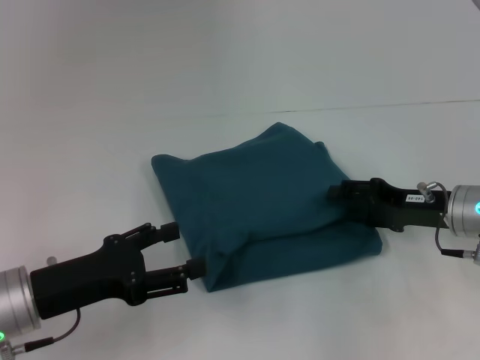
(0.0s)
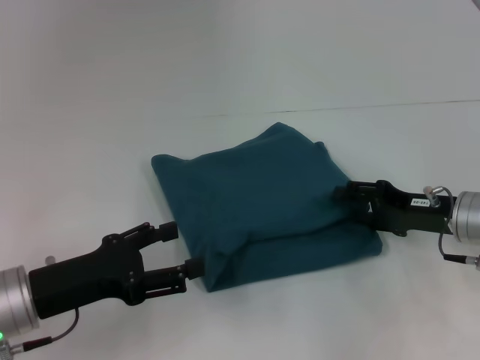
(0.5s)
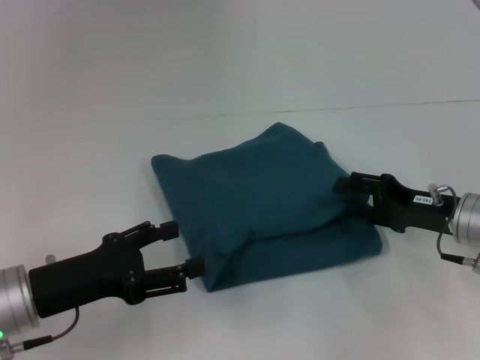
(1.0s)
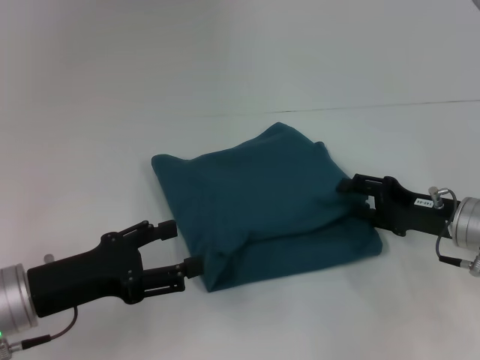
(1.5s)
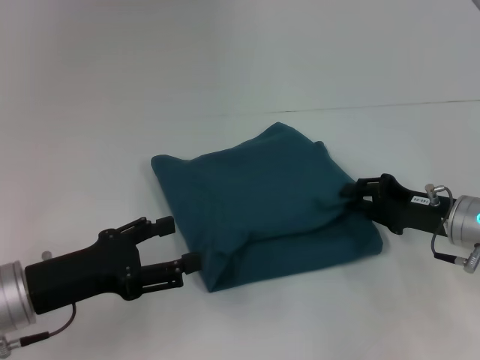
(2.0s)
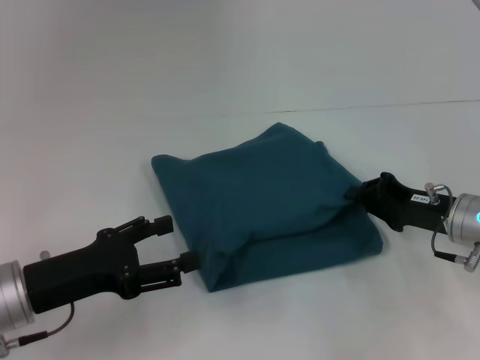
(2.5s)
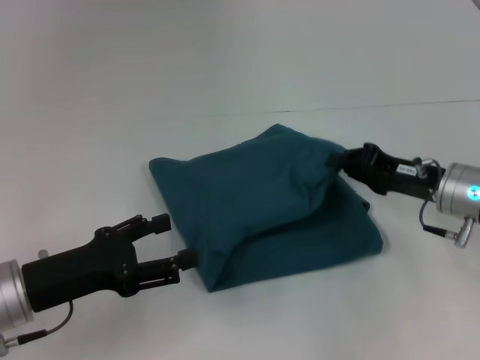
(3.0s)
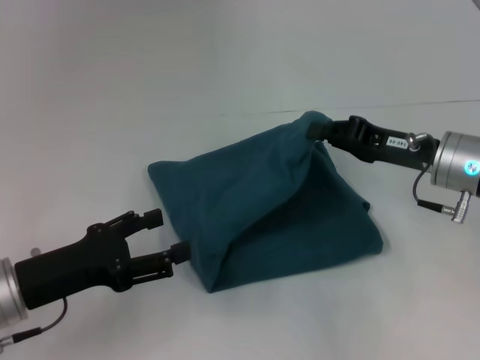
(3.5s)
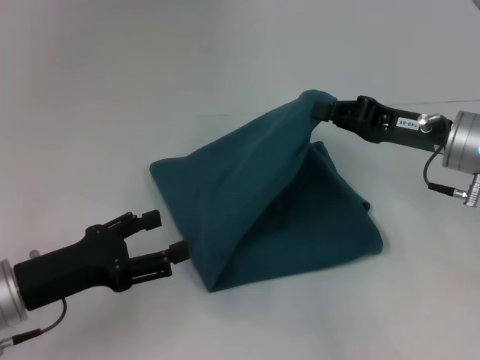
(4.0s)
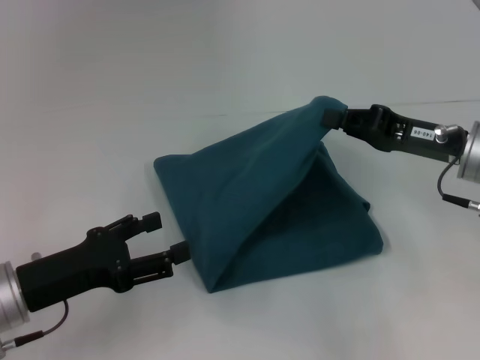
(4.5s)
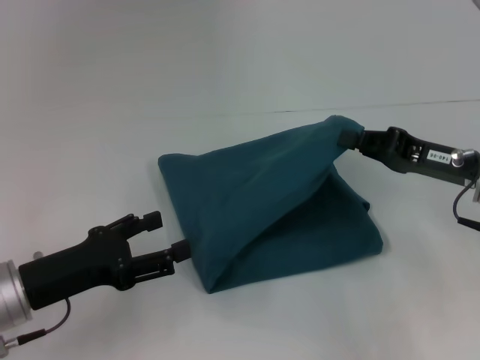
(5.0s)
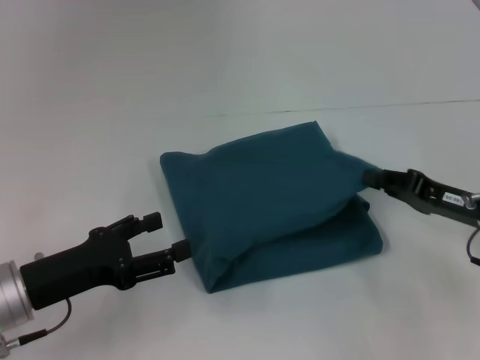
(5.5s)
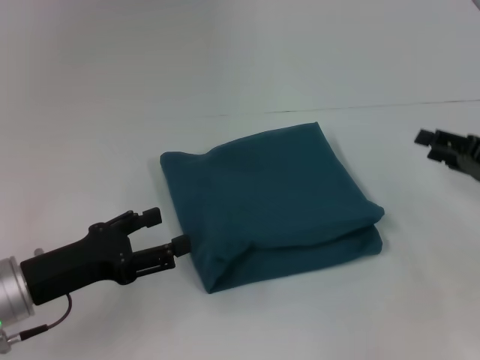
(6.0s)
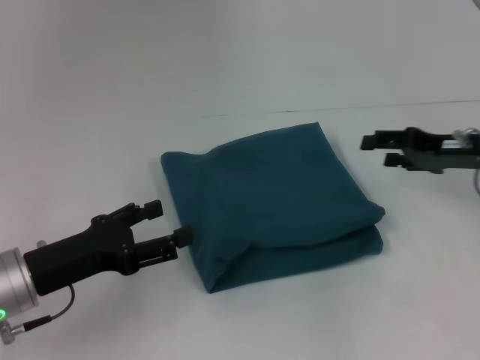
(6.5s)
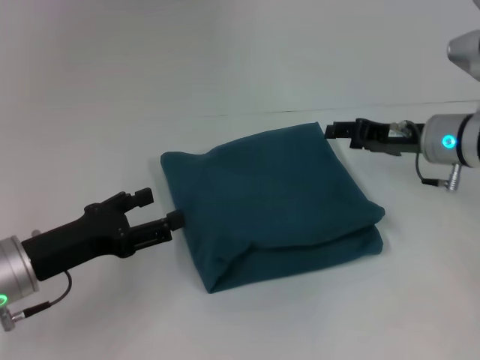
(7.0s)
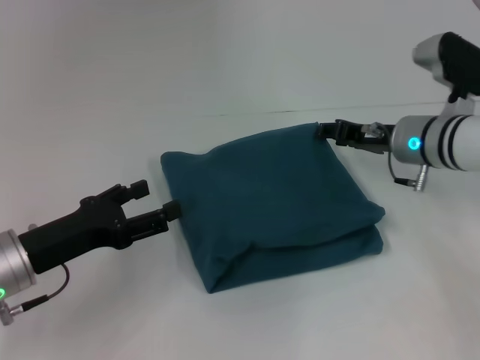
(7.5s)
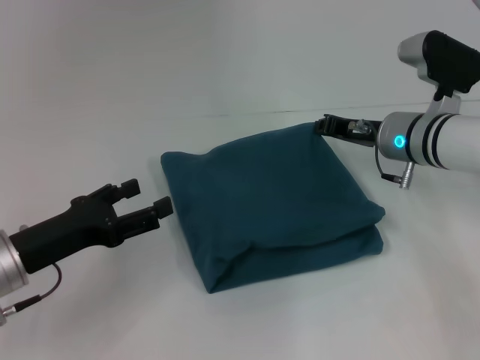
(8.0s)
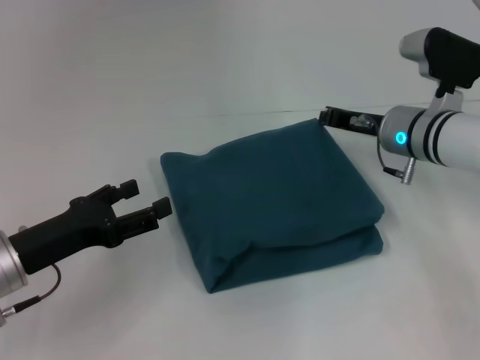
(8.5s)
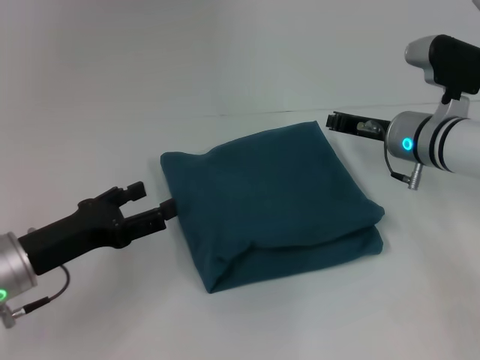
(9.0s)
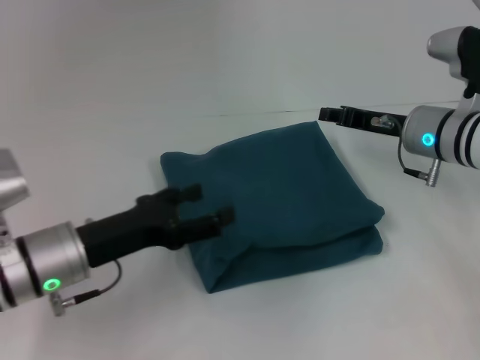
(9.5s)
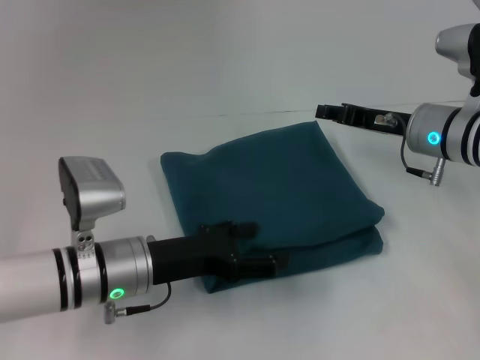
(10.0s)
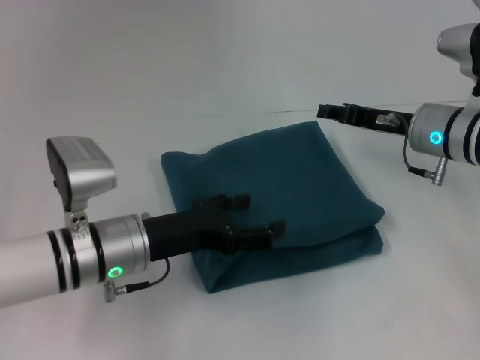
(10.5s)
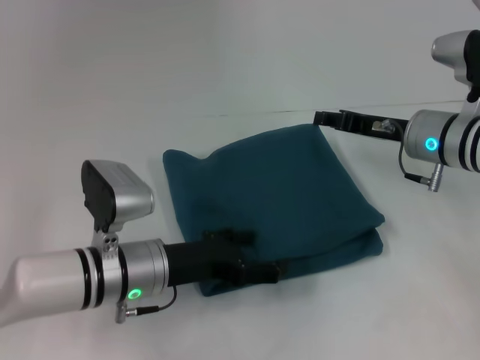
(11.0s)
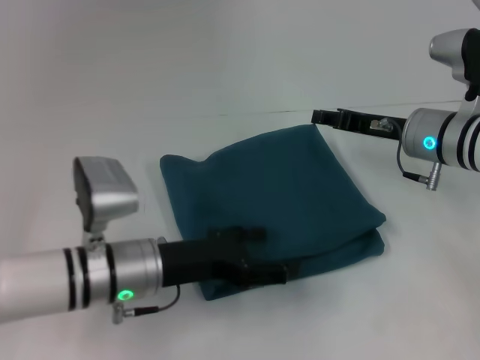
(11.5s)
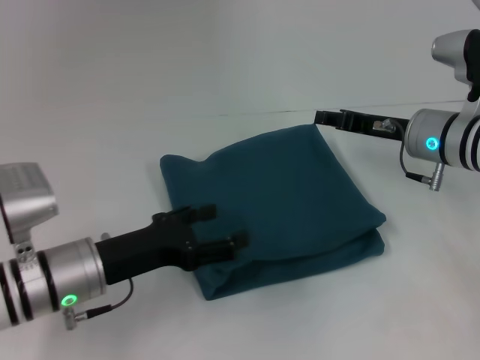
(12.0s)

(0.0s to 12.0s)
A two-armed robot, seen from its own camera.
0.0s - 2.0s: There are only small adjustments of the grippers.
2.0s - 4.0s: The right gripper travels upward by roughly 10 cm, and closes up.
4.0s - 6.0s: The right gripper moves to the right, approximately 10 cm, and opens its fingers.
6.0s - 8.0s: The right gripper shifts approximately 20 cm to the left and forward.
8.0s - 10.0s: The right gripper closes and opens again. Meanwhile the left gripper heads to the right, covering approximately 10 cm.
10.0s - 12.0s: The grippers move only a little.

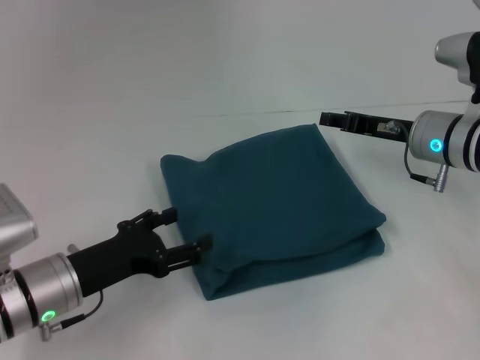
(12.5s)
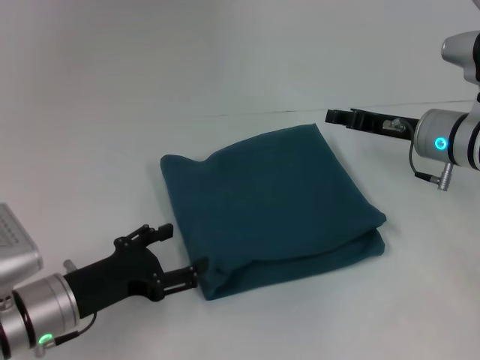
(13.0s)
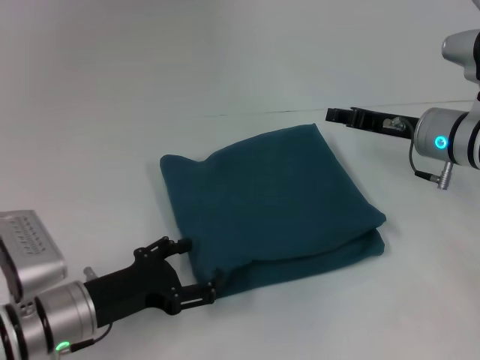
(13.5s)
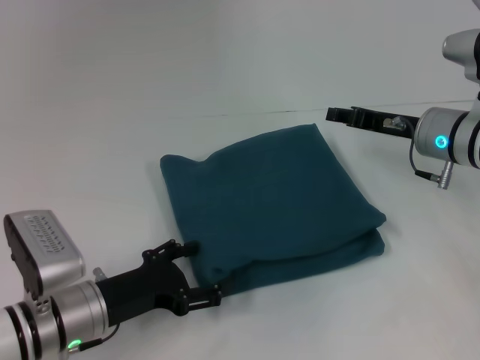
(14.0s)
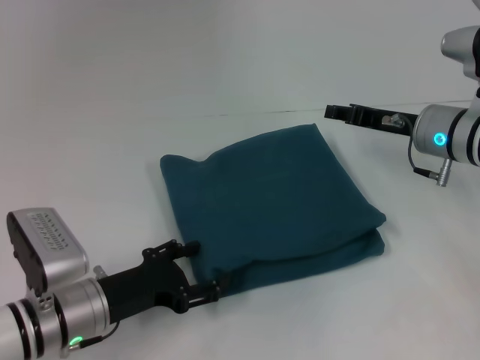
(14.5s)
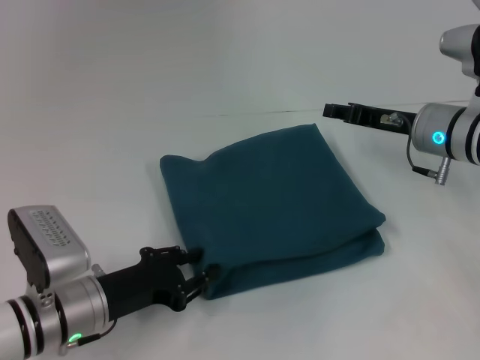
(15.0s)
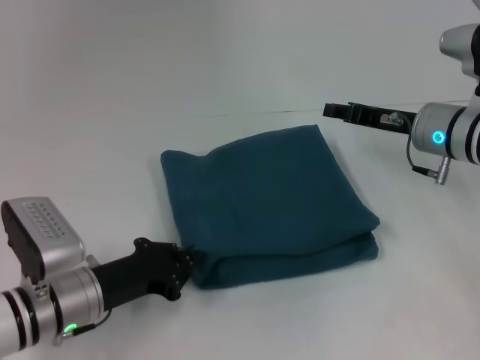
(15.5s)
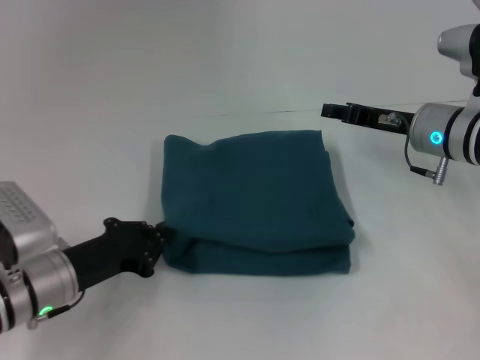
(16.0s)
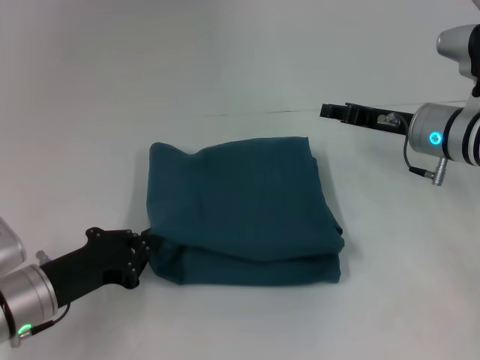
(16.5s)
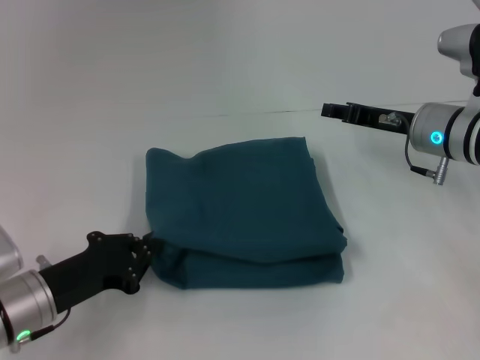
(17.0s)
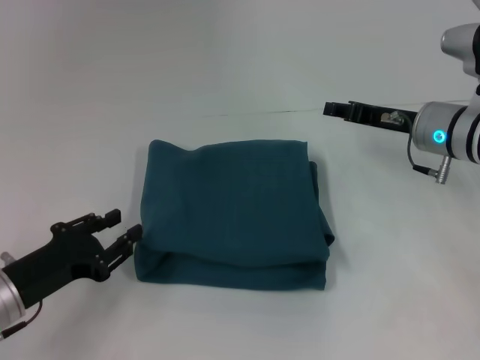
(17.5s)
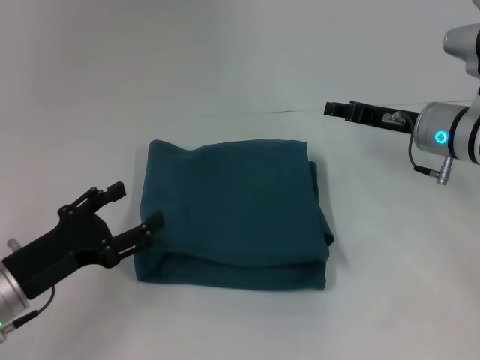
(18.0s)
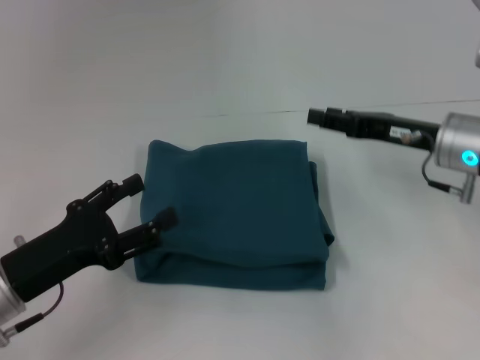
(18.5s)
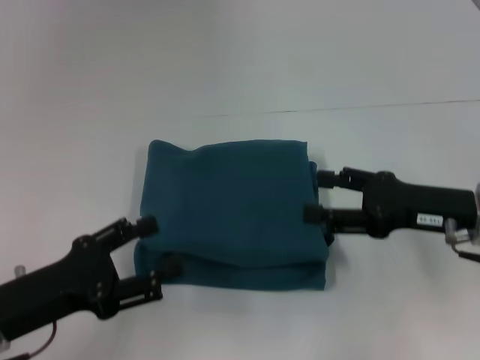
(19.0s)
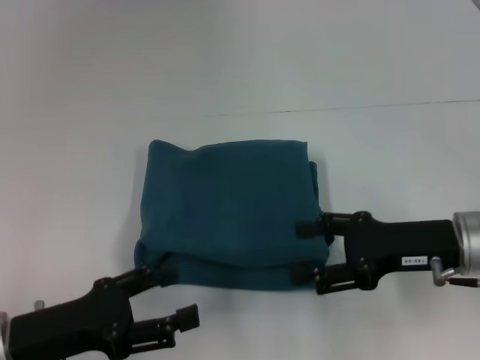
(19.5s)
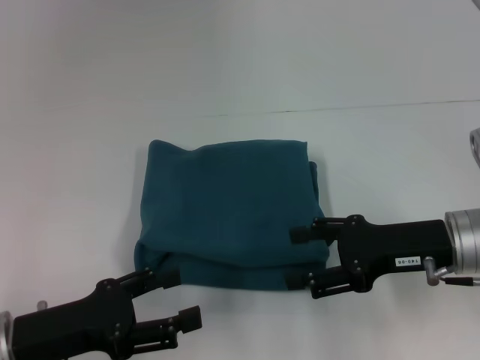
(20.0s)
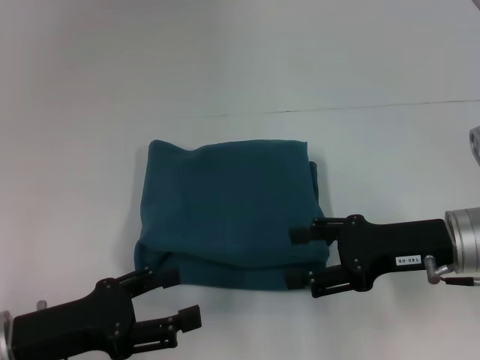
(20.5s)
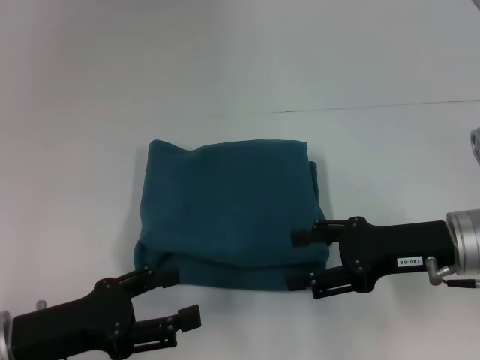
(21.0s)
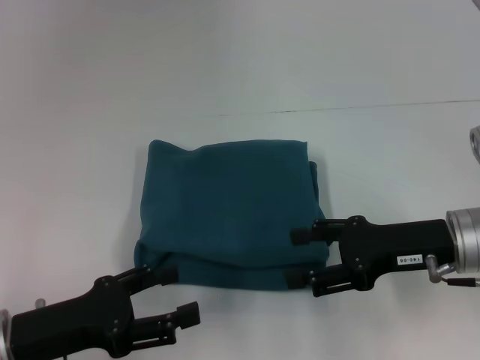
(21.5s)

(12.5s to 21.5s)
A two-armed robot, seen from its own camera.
12.5s - 14.5s: The grippers stay close to where they were, moving slightly.
14.5s - 17.0s: The left gripper closes.
17.0s - 19.5s: The left gripper goes about 5 cm backward, and opens its fingers, while the right gripper heads backward, covering about 10 cm, and opens.
19.5s - 21.5s: The grippers move only a little.

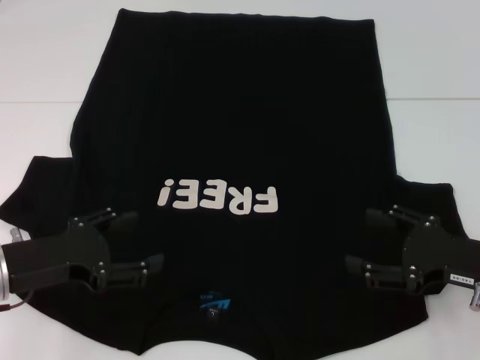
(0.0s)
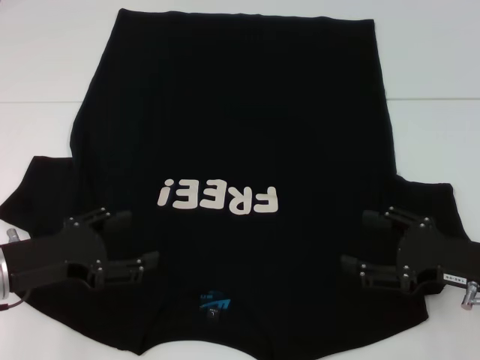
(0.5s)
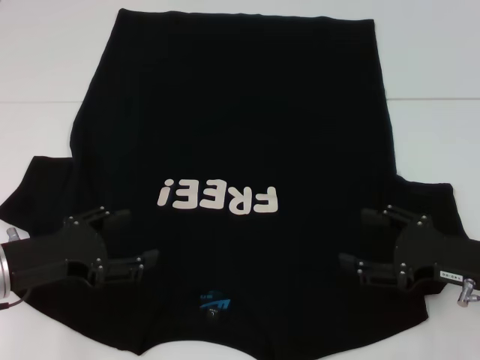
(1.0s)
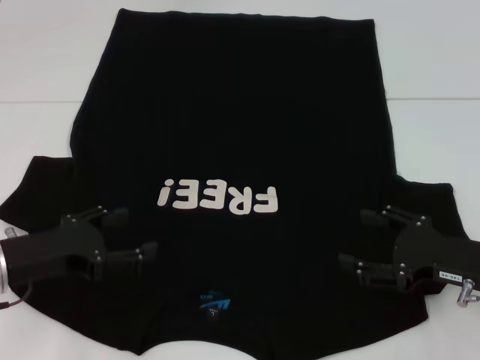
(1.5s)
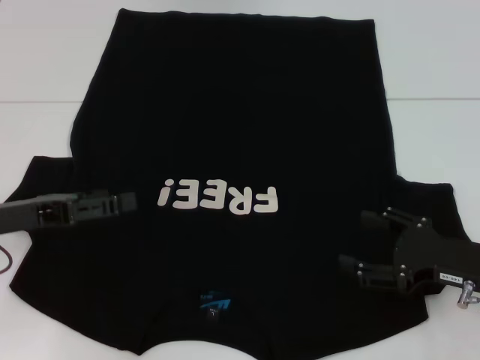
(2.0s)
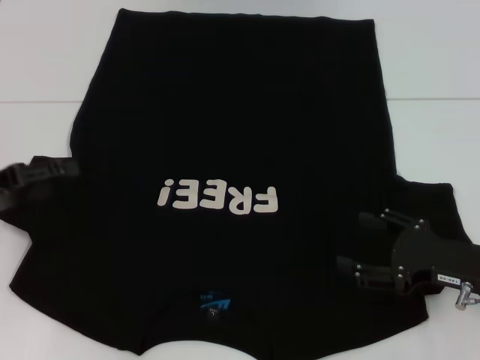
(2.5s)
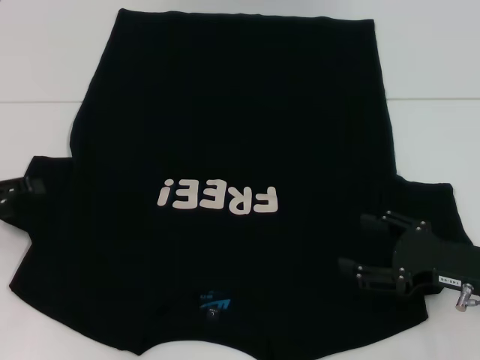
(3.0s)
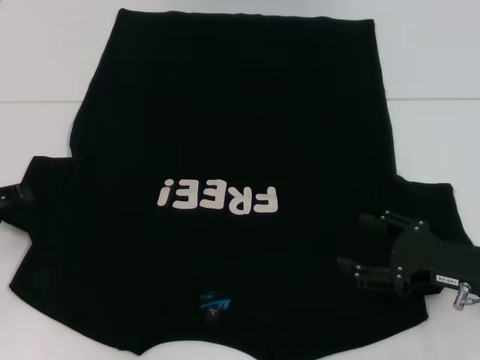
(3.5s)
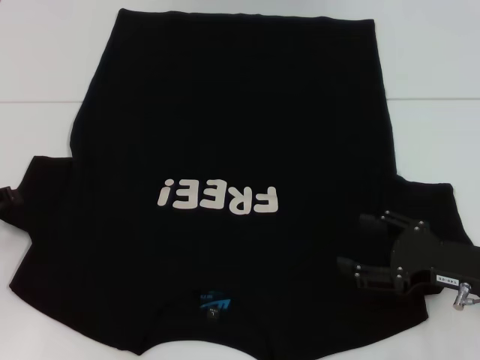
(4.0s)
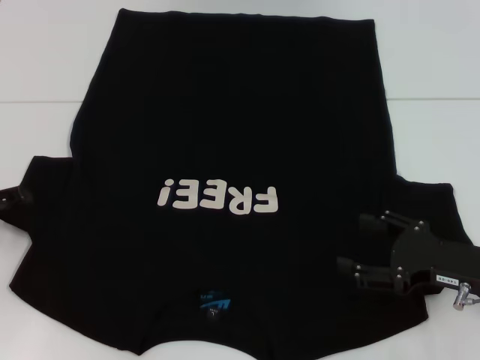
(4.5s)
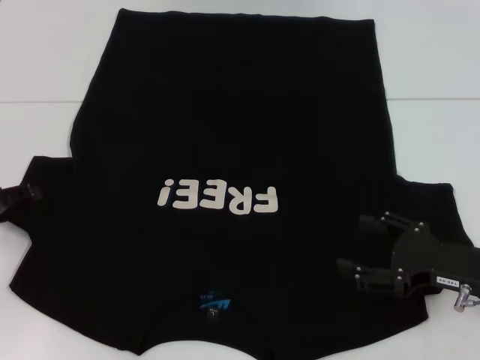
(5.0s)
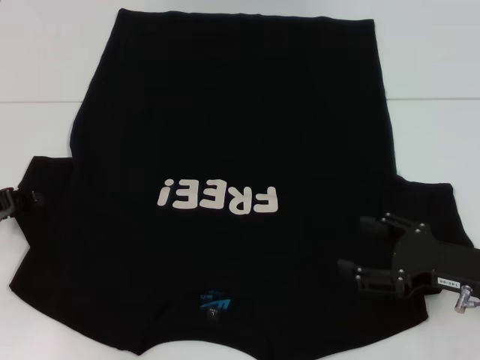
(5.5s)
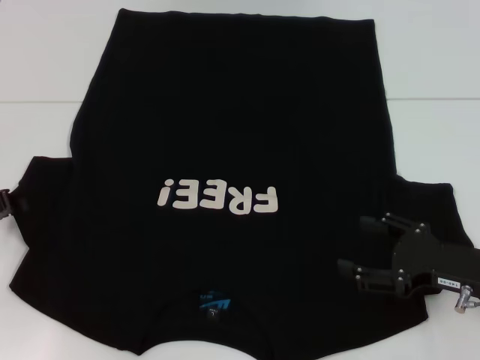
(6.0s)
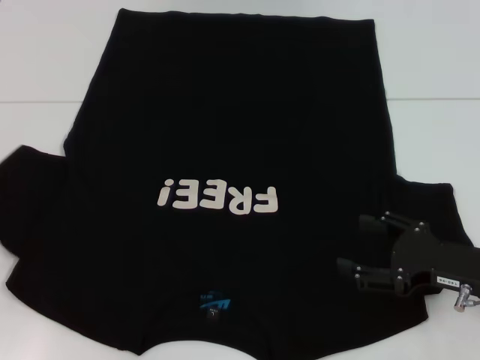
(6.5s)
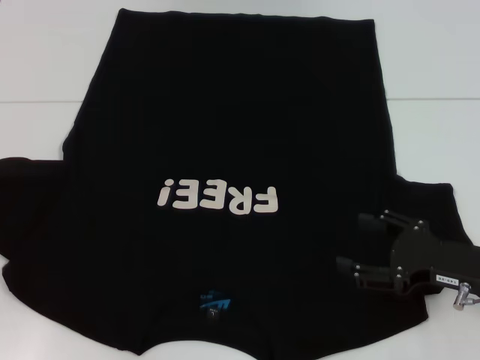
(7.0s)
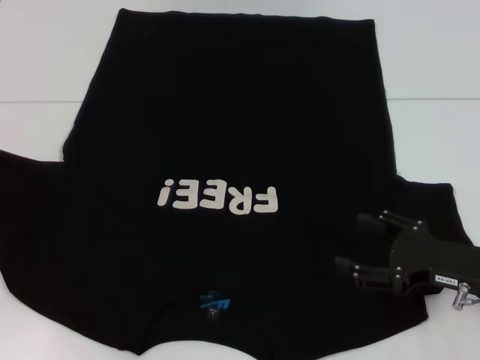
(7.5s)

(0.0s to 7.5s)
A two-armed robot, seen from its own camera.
0.0s - 2.0s: The left gripper shifts by about 5 cm.
2.0s - 4.0s: The left gripper goes roughly 10 cm to the left.
5.5s - 7.5s: The left gripper moves roughly 5 cm, and closes.
